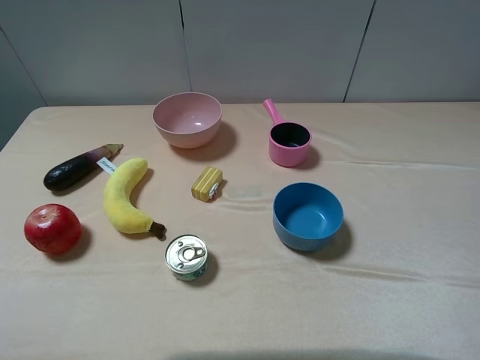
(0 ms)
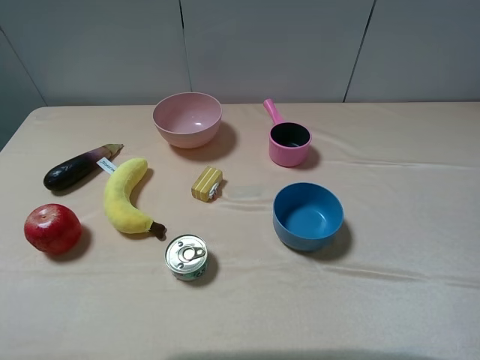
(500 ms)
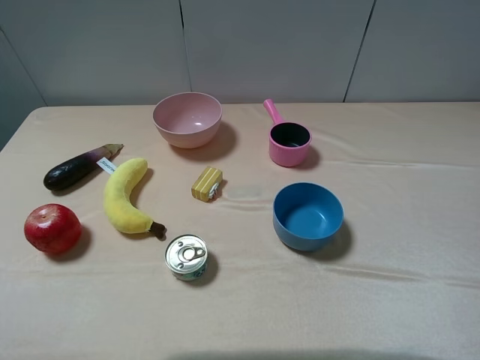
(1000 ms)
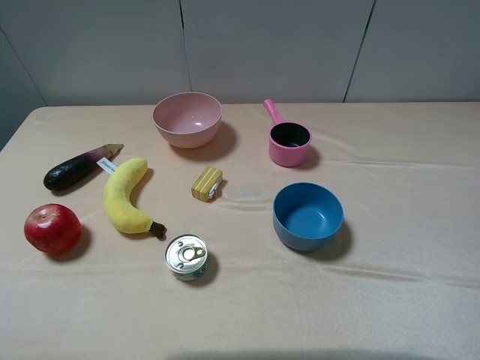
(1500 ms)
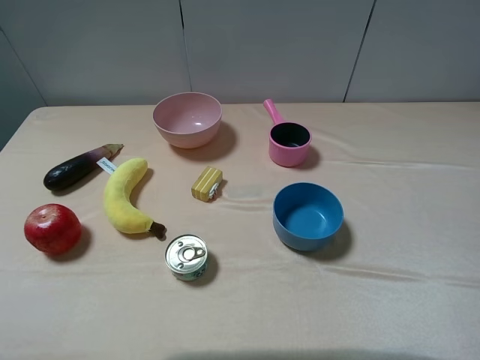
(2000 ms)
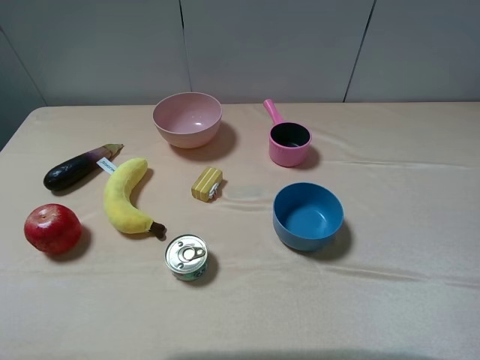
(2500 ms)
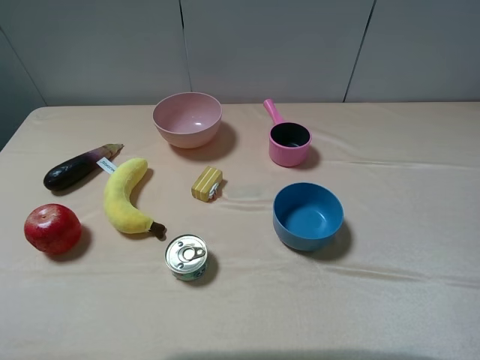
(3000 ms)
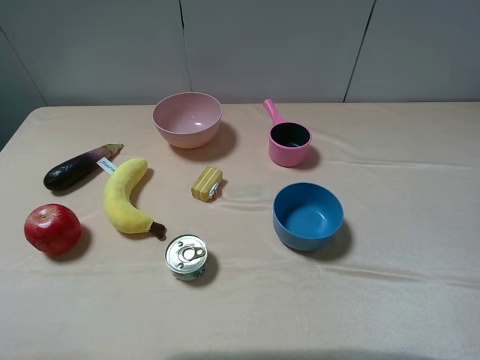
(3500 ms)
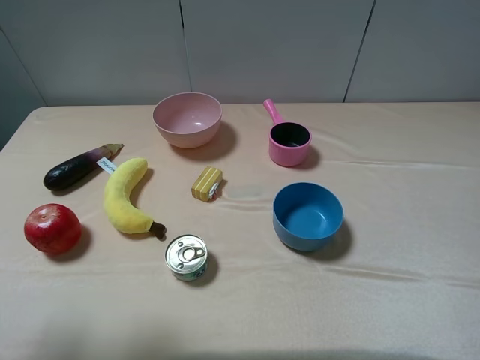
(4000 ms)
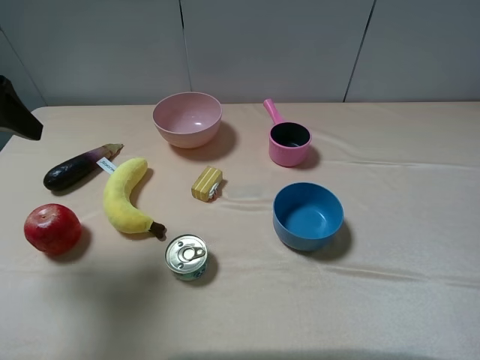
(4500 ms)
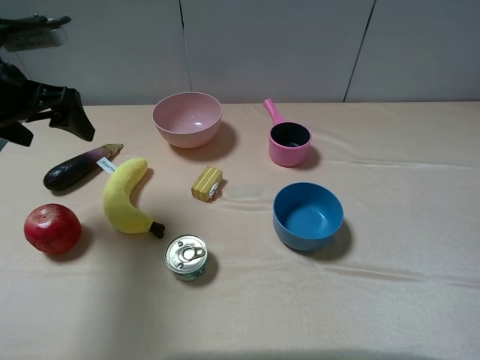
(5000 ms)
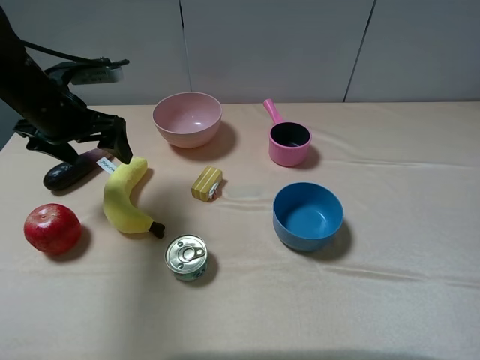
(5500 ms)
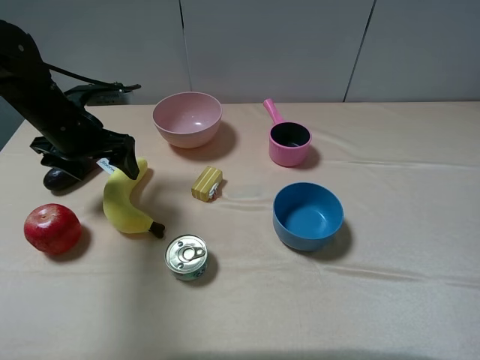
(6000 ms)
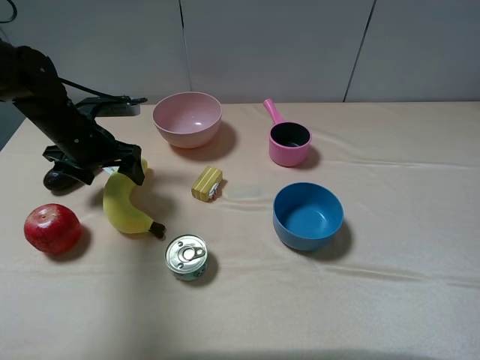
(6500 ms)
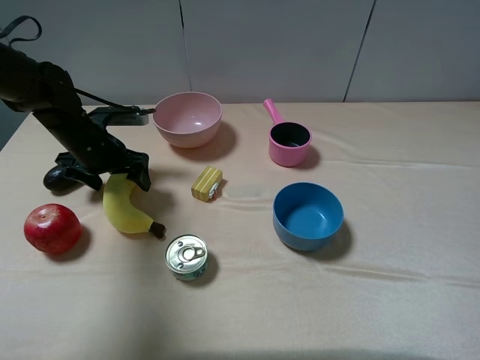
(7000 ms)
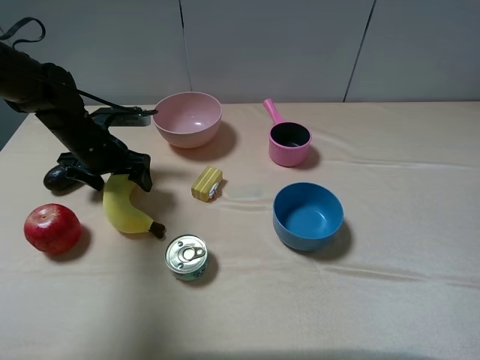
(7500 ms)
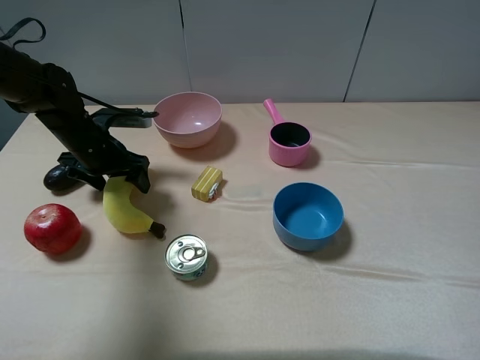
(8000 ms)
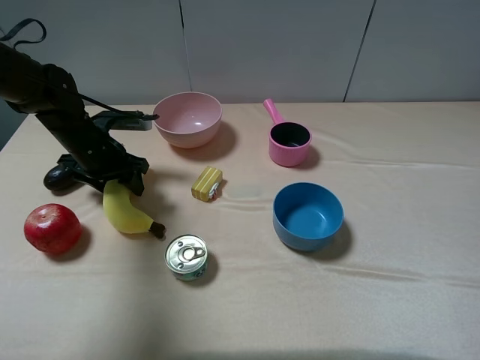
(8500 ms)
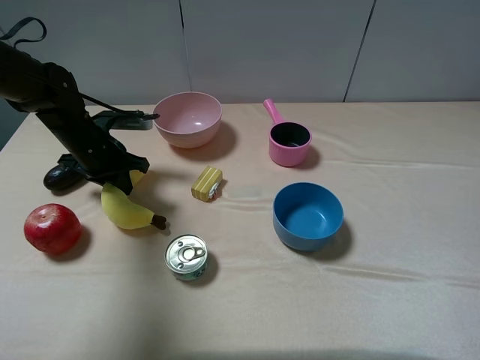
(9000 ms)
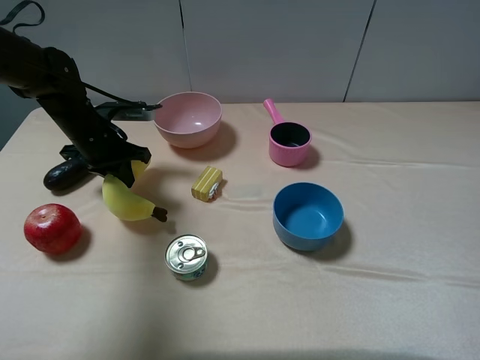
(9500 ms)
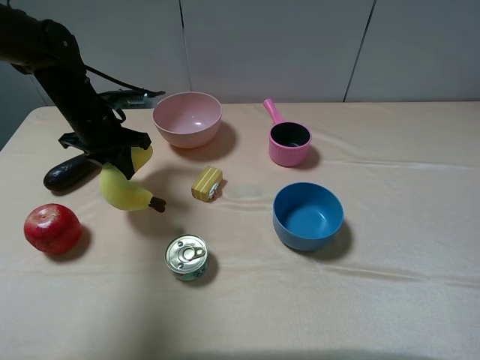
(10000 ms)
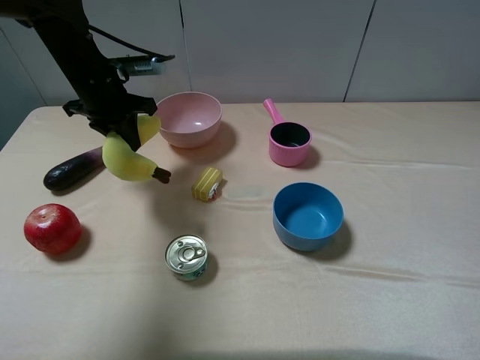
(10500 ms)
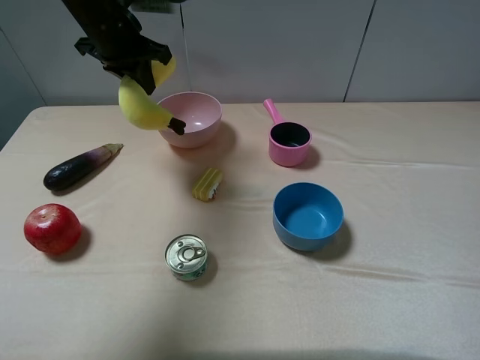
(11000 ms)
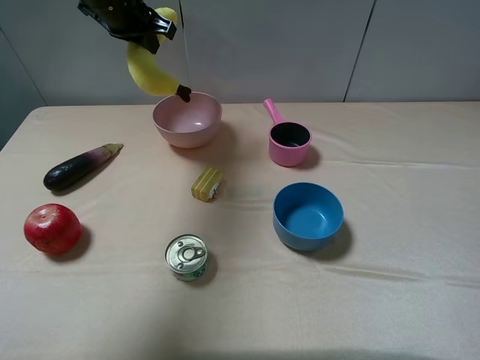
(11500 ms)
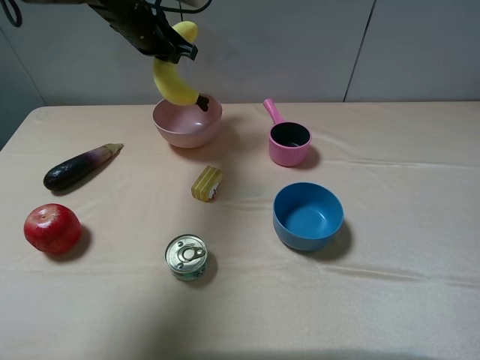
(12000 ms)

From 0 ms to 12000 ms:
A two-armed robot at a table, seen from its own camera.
Task of the whole recording: pick up an item with a gripper and place it in a random container on the table.
Step, from 0 ms to 9000 ms: Grasp the plush banana with the left gripper.
From 0 ms to 2000 ms: Neither gripper changes place.
From 2000 ms to 4000 ms: The left gripper travels forward by approximately 10 cm.
From 4000 ms to 6000 ms: The left gripper heads forward and downward, covering some 30 cm.
From 6000 ms to 8000 ms: The left gripper goes roughly 5 cm downward.
From 8000 ms to 10000 ms: The left gripper closes up.
From 10000 ms to 12000 ms: The left gripper shifts some 15 cm forward, upward and to the right.

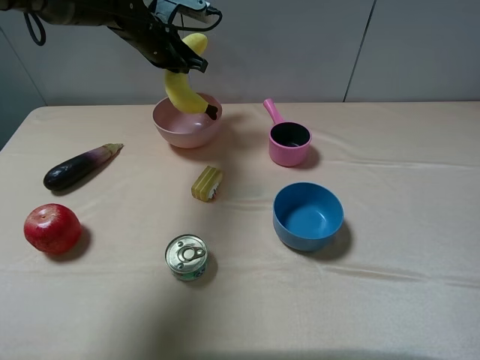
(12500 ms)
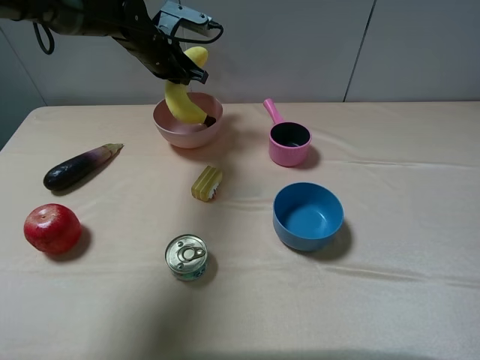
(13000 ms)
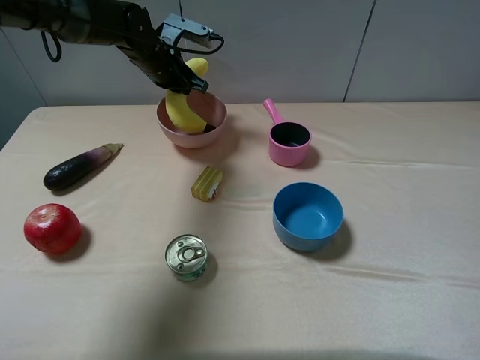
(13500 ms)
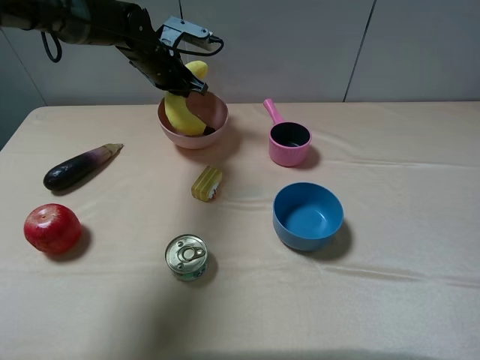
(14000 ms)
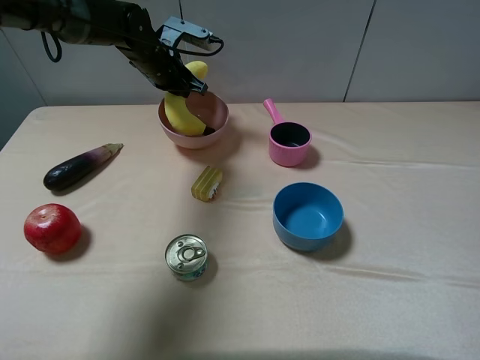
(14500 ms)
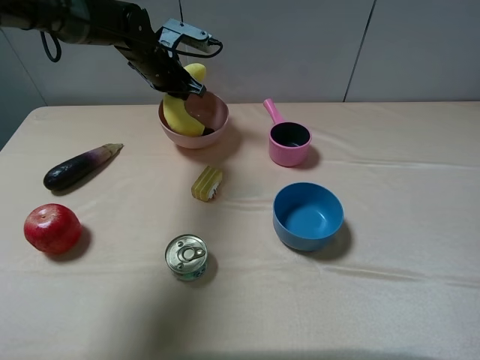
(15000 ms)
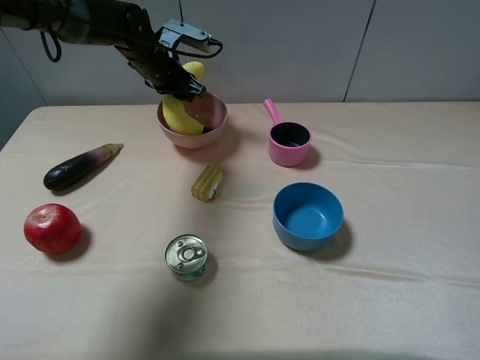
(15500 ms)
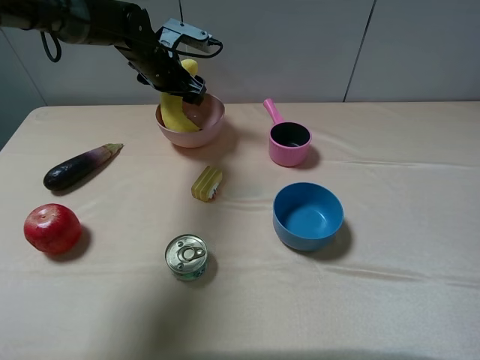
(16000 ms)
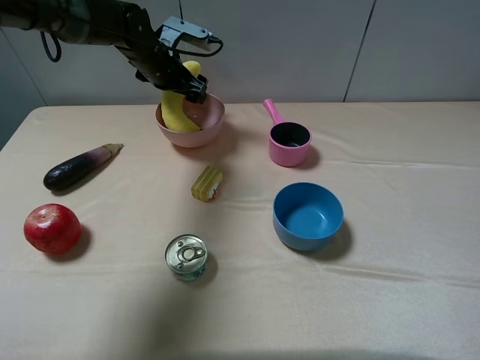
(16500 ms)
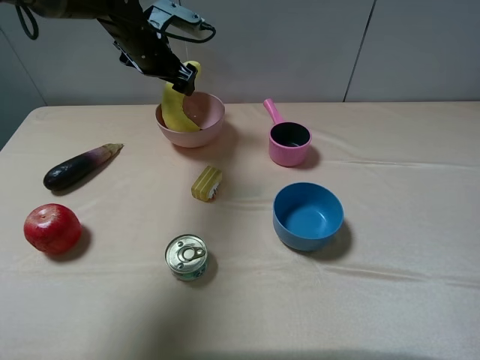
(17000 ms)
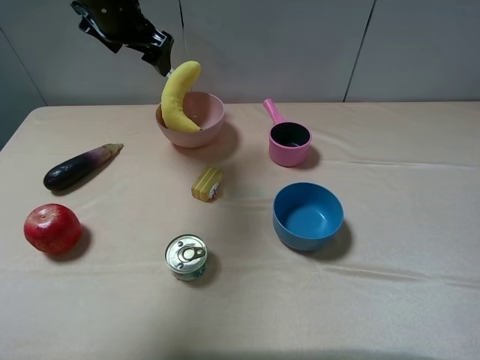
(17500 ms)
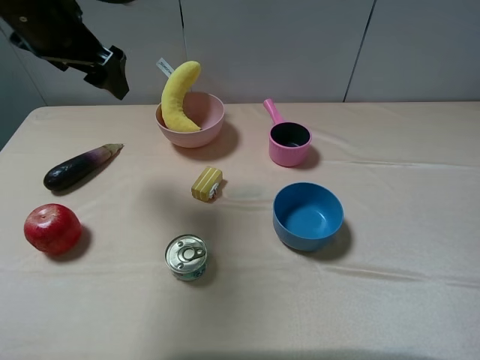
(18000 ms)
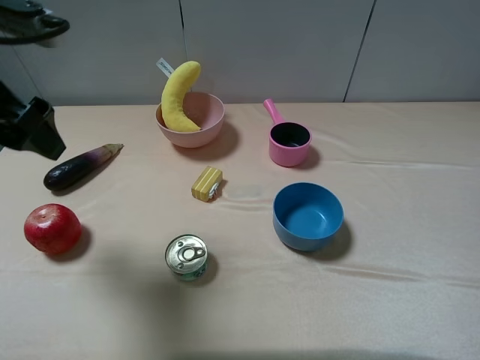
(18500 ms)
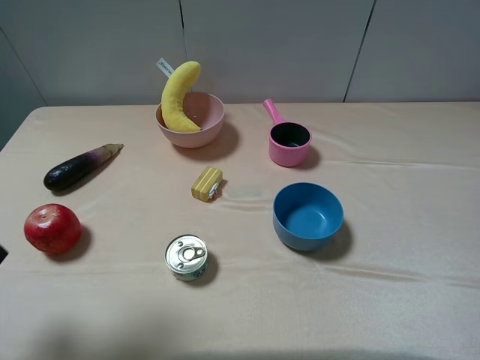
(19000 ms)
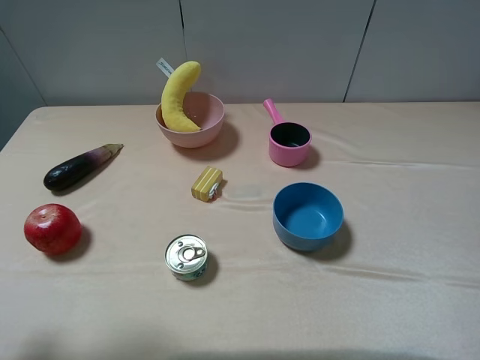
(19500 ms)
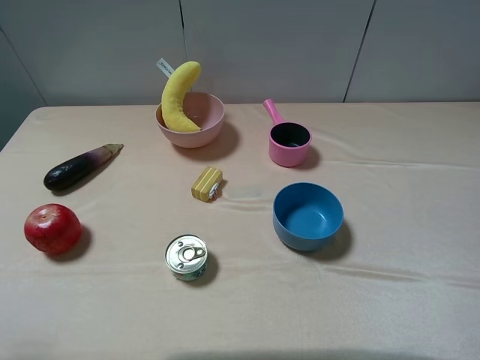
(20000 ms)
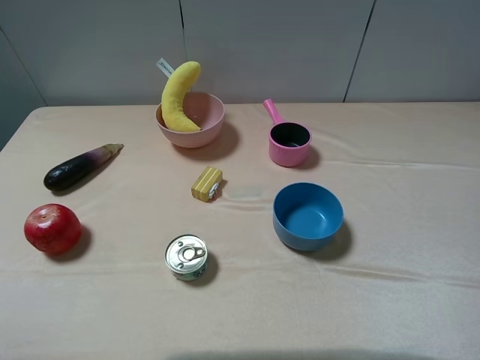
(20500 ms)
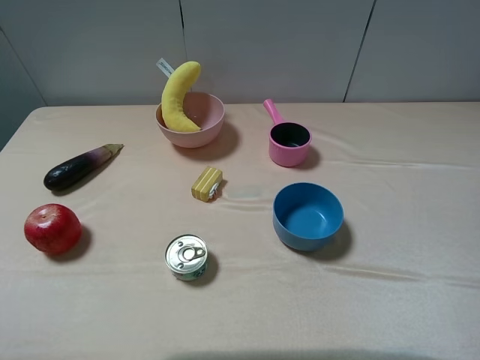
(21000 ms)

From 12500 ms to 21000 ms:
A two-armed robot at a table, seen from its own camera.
Task of the whole recording: pick up an item with a gripper and place it in a random container on the table.
Step, from 12500 ms to 16500 ms: Place the plush banana into the pink bowl with the left gripper.
From 12500 ms to 14500 ms: The grippers move only a little.
From 14500 ms to 16500 ms: The left gripper opens.
From 16500 ms to 19000 ms: The left gripper shifts approximately 40 cm backward.
From 19000 ms to 21000 ms: The left gripper shifts some 10 cm backward.

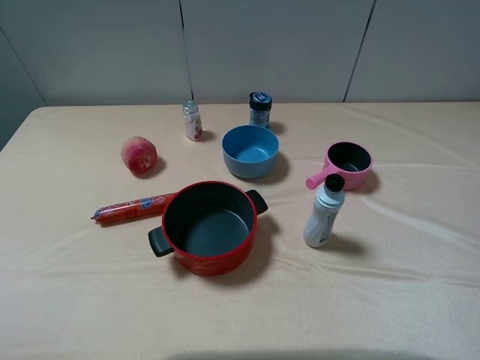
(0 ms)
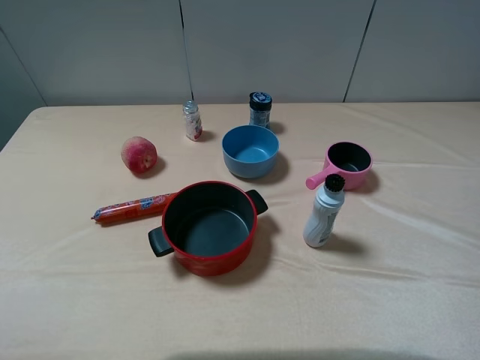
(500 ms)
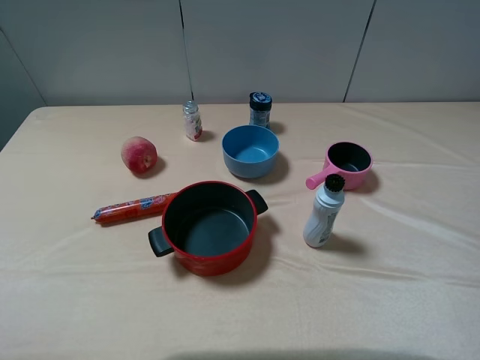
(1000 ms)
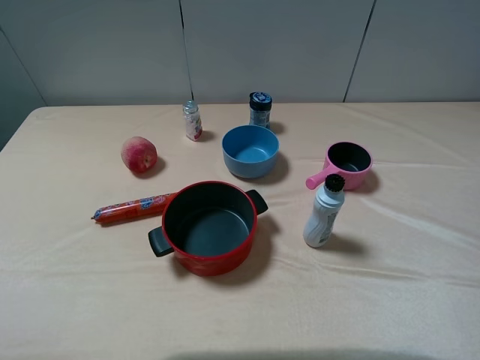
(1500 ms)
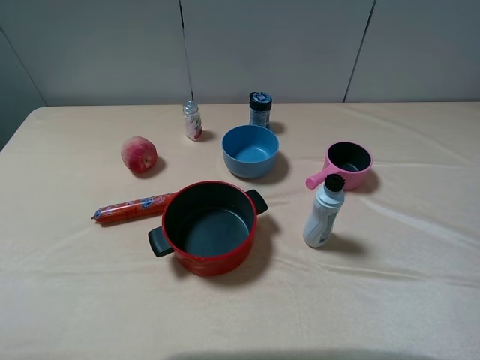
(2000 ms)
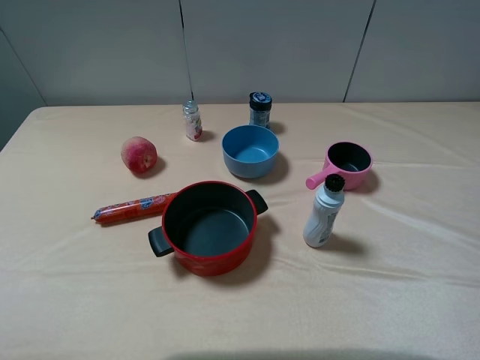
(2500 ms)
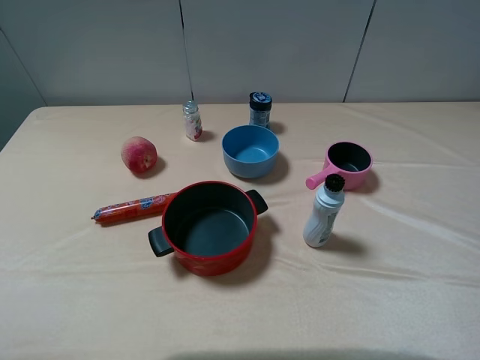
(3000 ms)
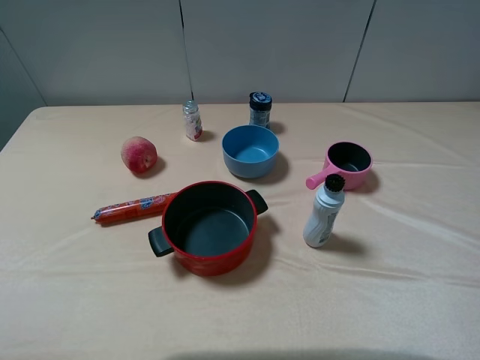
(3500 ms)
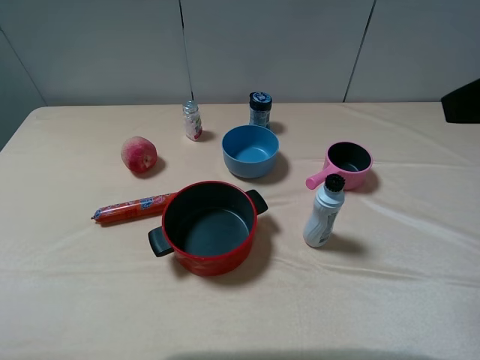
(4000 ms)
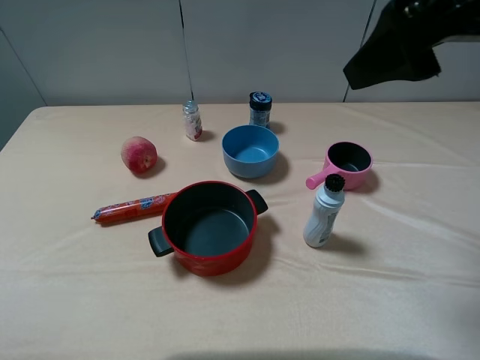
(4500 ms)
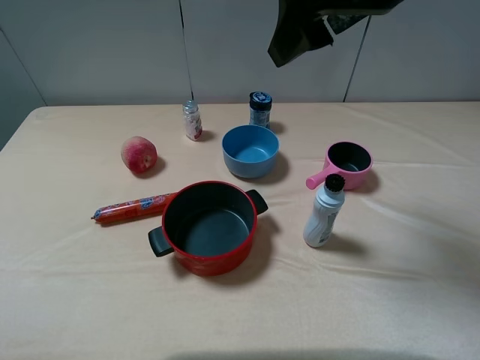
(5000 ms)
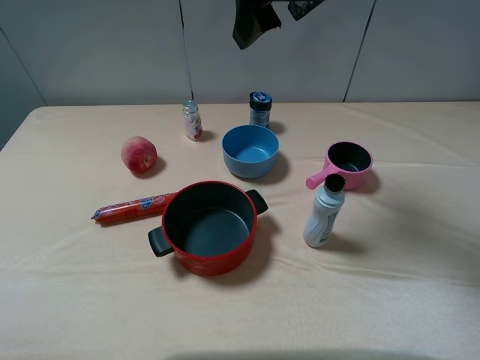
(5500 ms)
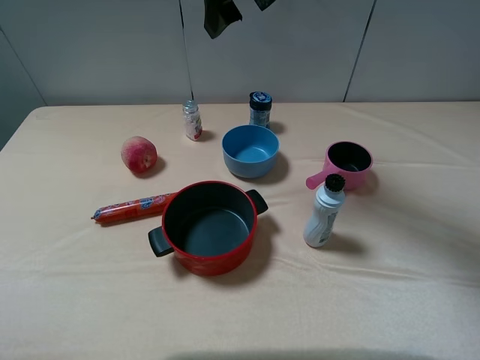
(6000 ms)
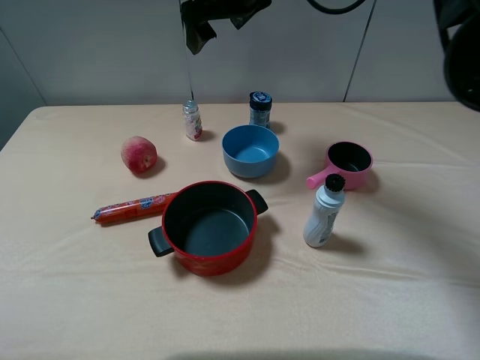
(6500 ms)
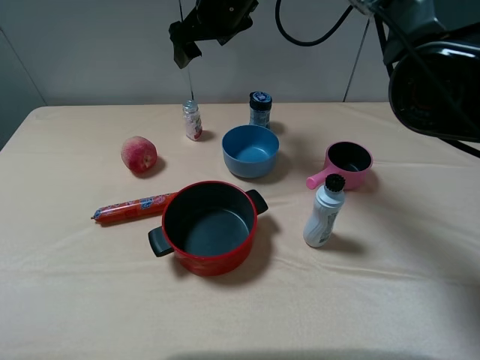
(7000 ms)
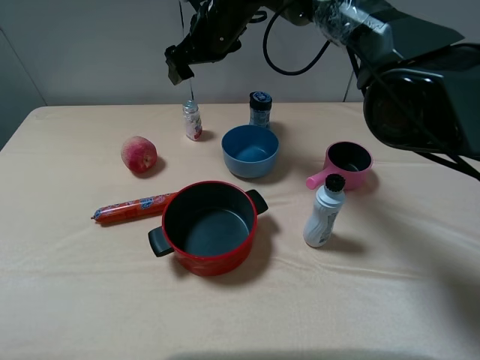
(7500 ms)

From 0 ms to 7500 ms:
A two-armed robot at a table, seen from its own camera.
Task of the whole recording: pick up an item with a gripper and place it in a random container on the table.
From 0 ms to 2000 ms: Neither gripper changes place.
From 2000 ms to 4000 ms: The right gripper shifts about 15 cm forward, upward and to the left.
From 4000 ms to 5500 ms: The right gripper is displaced forward and to the left by approximately 25 cm.
From 5500 ms to 7500 ms: The right gripper travels forward, downward and to the left by roughly 20 cm.
